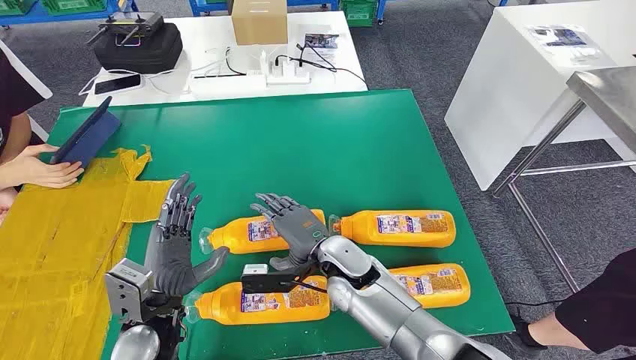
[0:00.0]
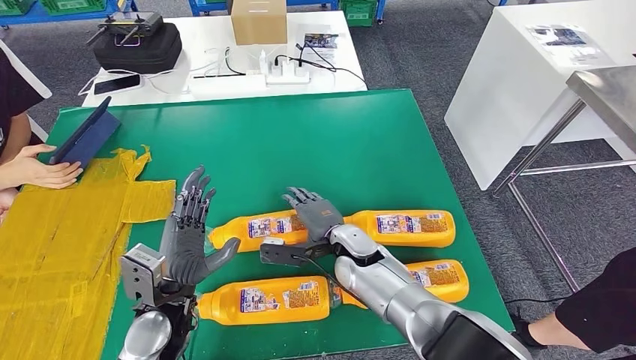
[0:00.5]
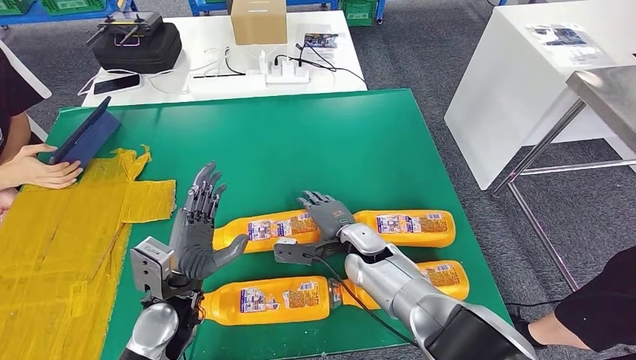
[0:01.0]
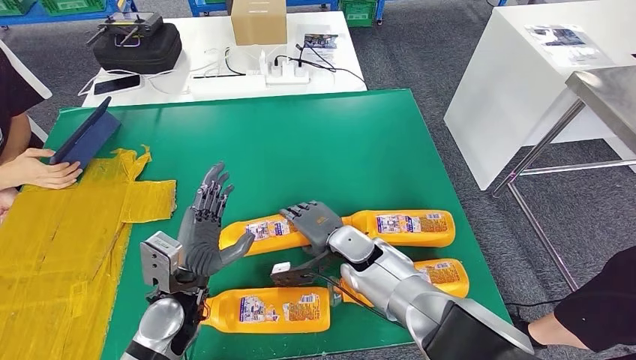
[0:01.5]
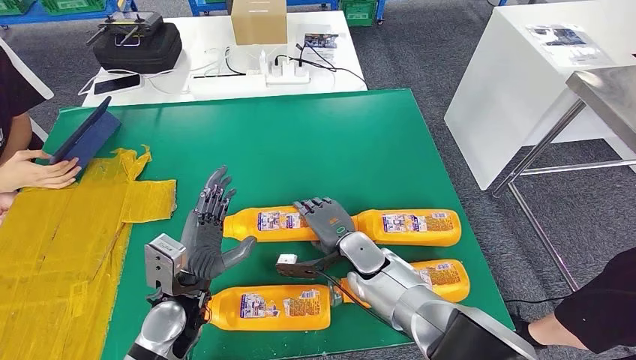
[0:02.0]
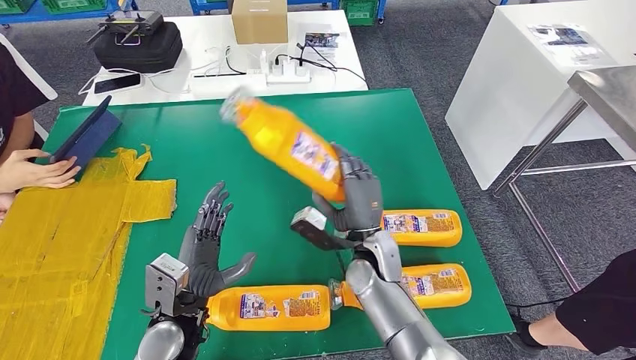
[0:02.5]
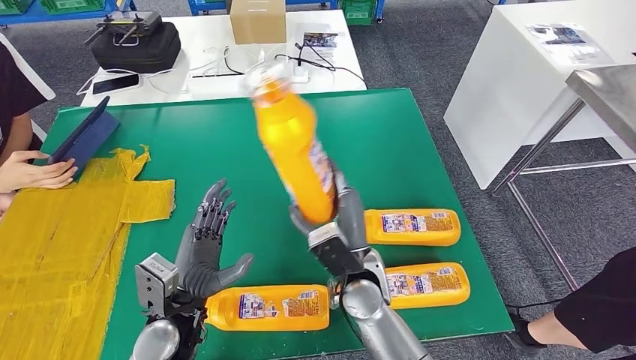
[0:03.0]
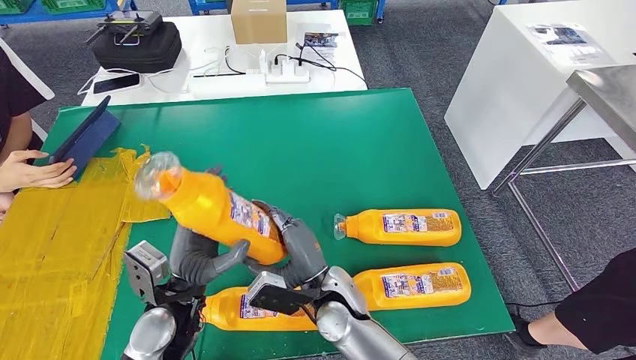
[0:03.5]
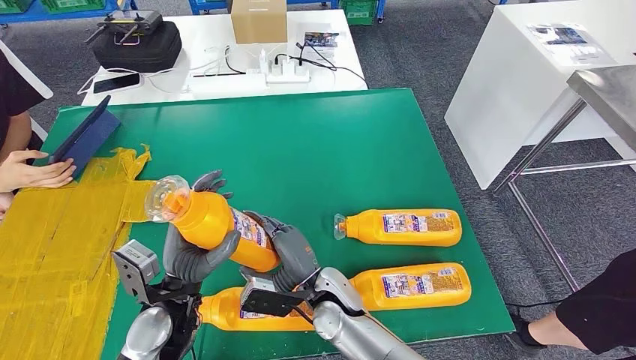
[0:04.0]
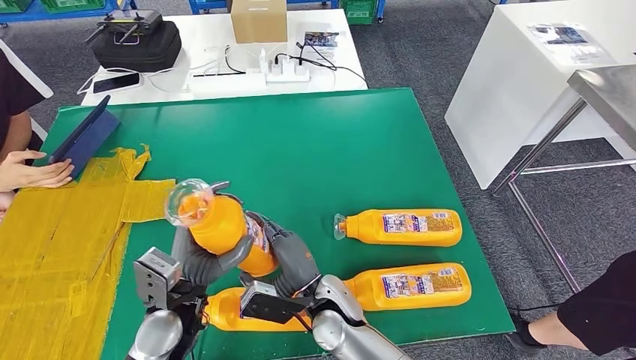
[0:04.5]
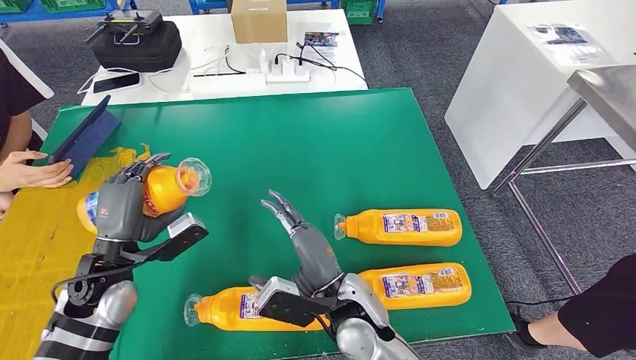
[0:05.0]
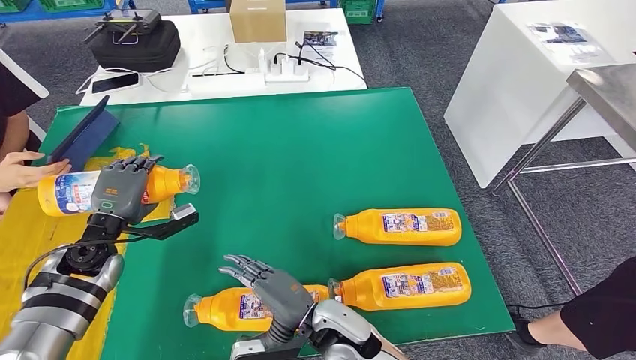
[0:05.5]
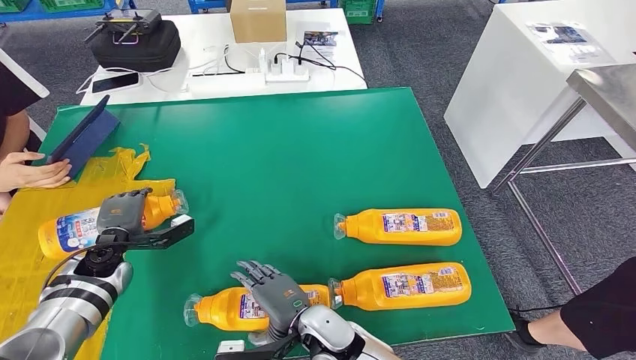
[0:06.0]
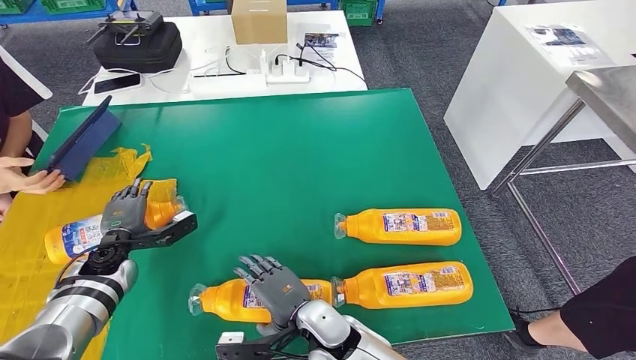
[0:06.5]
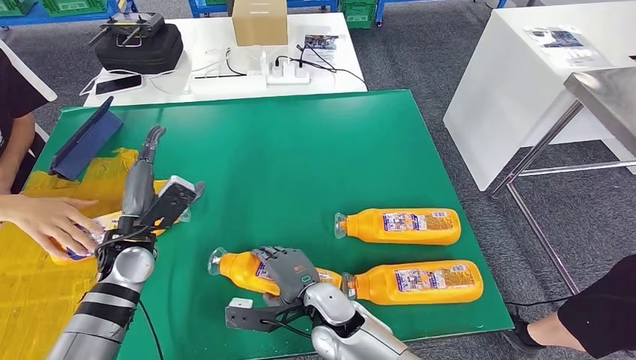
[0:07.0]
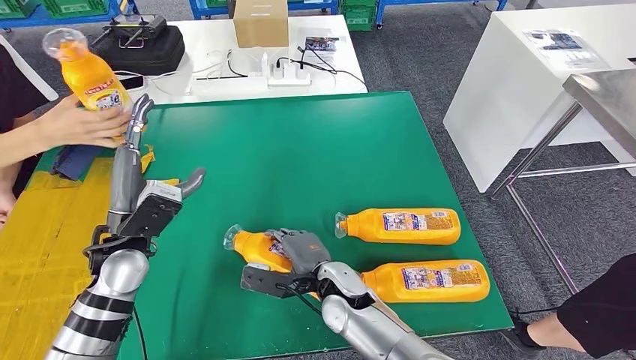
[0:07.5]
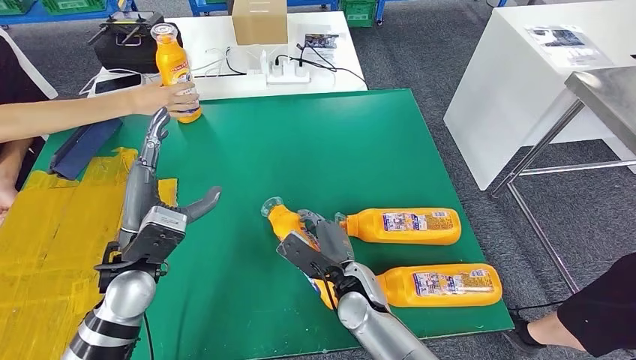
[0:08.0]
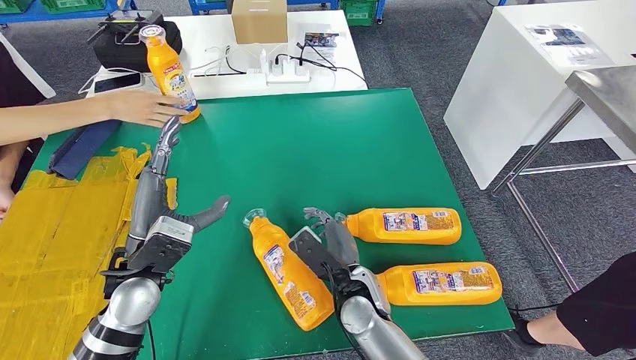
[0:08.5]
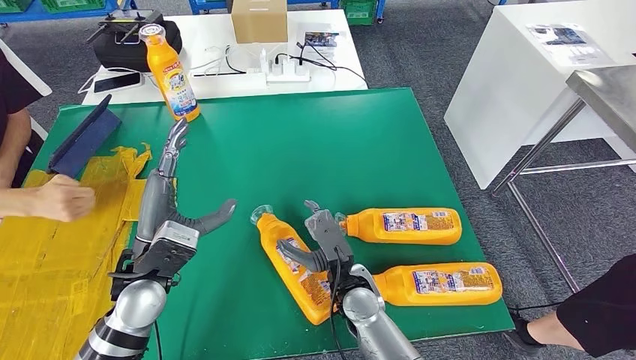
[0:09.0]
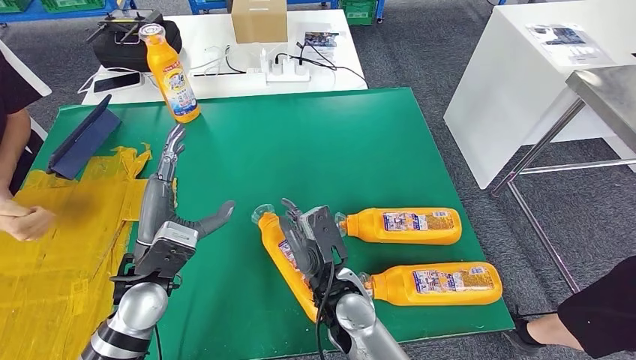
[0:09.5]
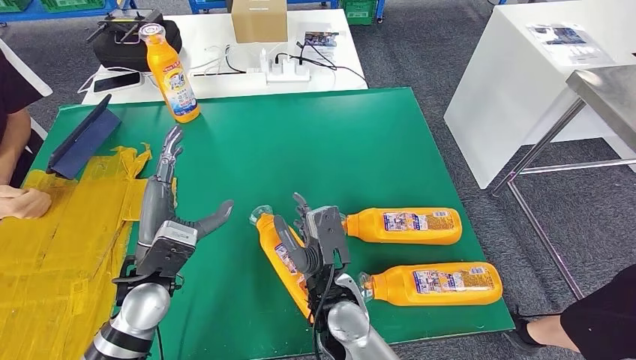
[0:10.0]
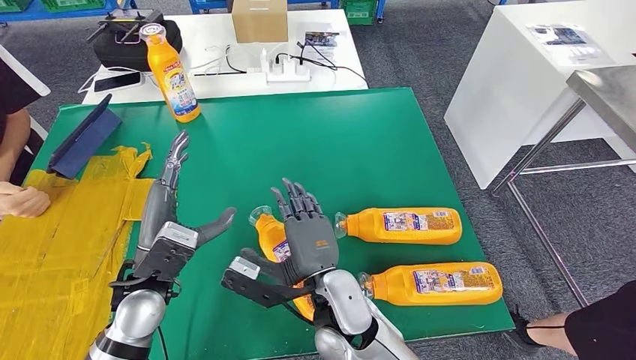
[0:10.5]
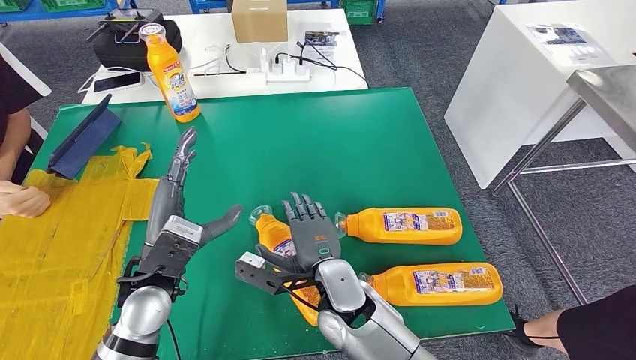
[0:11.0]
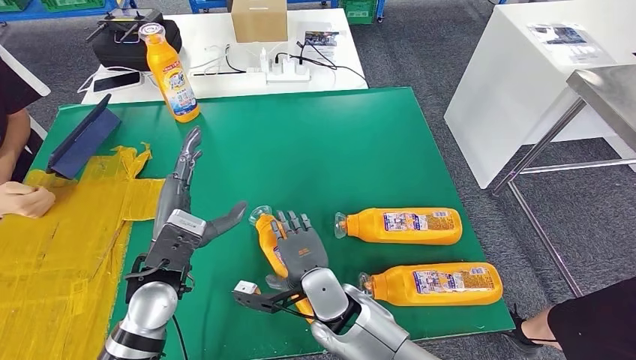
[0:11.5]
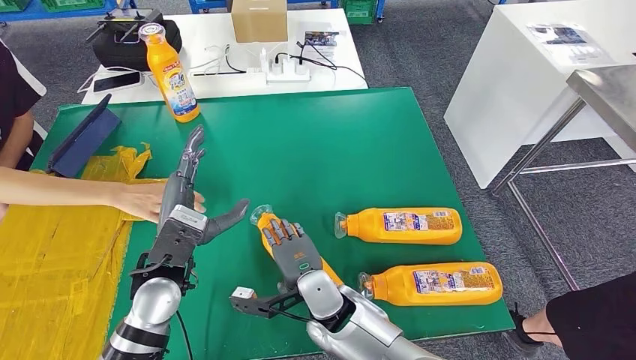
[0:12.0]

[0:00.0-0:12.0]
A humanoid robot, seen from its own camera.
Step, 0:00.0 to 0:02.0: Take the fast-moving consumer goods bottle from the table.
Step, 0:03.0 to 0:06.0: Flip the fast-moving consumer goods bottle to the front side.
0:02.0 to 0:04.0: The right hand moves to the left and backward, roughly 10 cm.
0:04.0 to 0:06.0: The left hand travels to the left and forward by about 20 cm. The right hand goes some 5 cm backward.
0:10.0 to 0:12.0: The right hand moves approximately 5 cm.

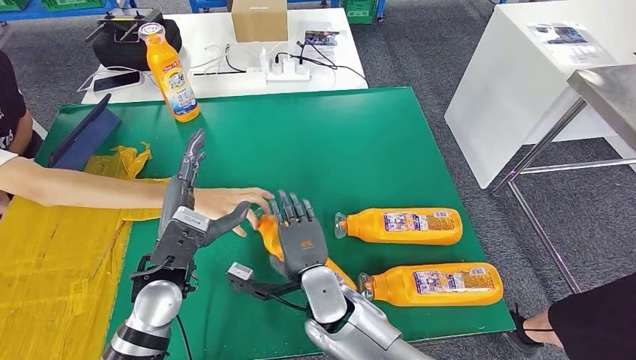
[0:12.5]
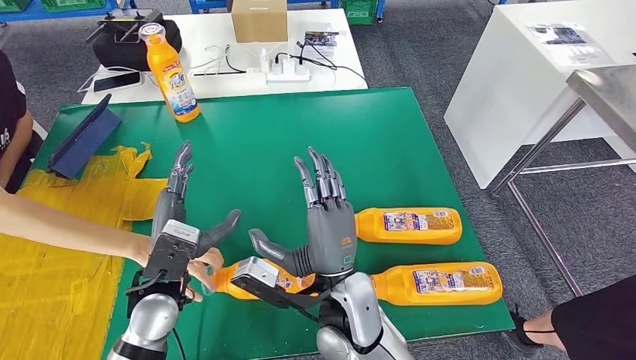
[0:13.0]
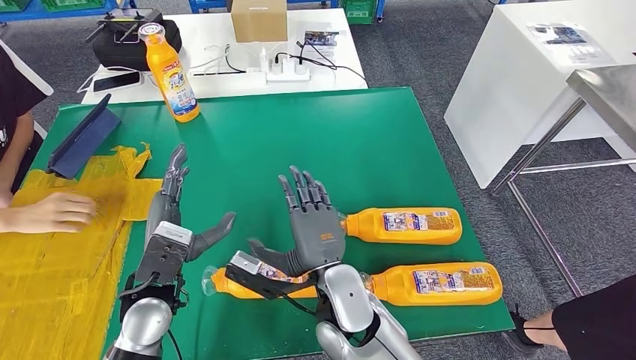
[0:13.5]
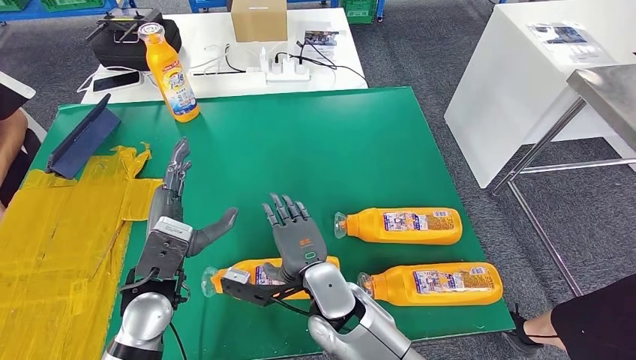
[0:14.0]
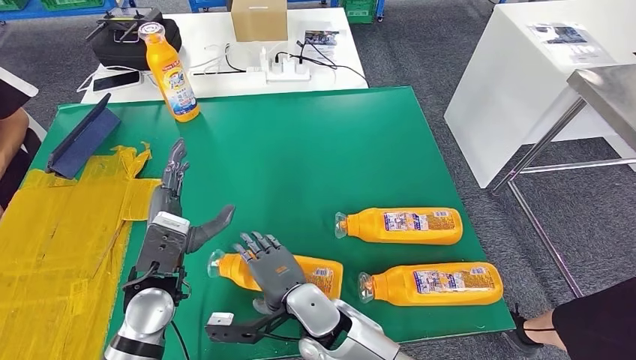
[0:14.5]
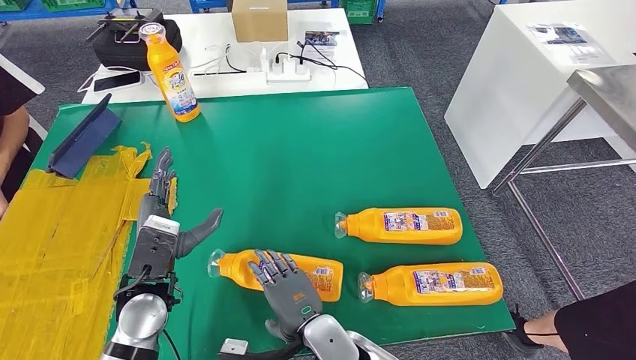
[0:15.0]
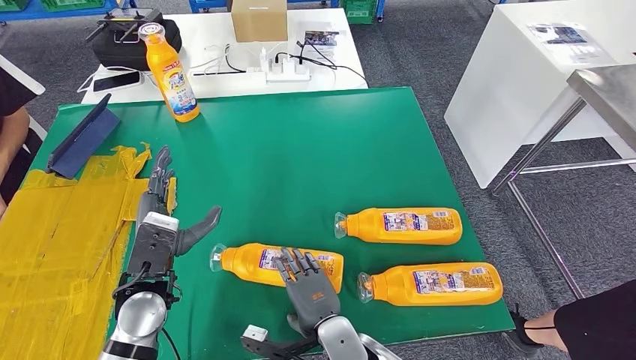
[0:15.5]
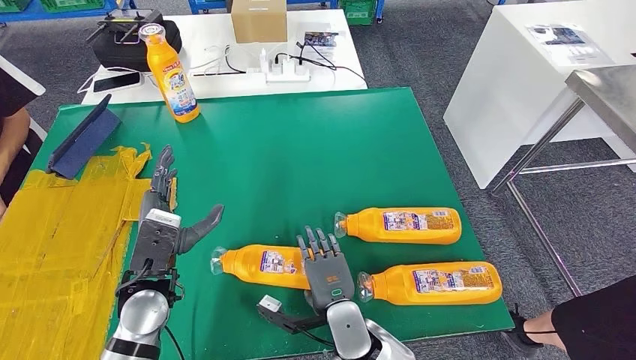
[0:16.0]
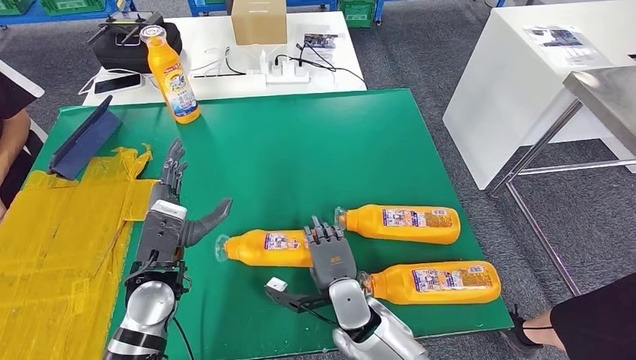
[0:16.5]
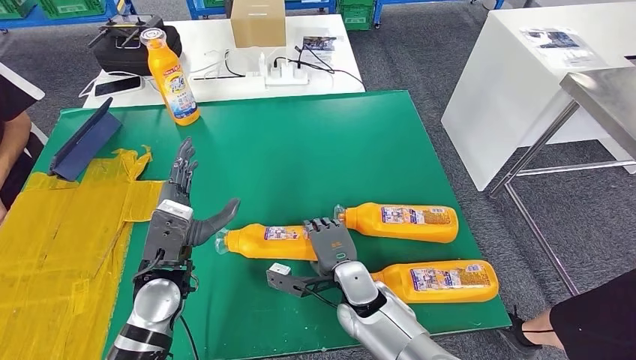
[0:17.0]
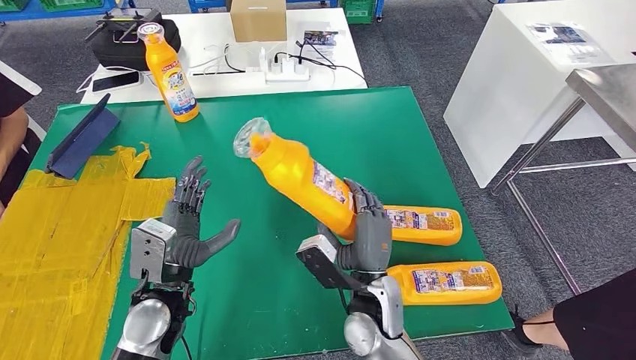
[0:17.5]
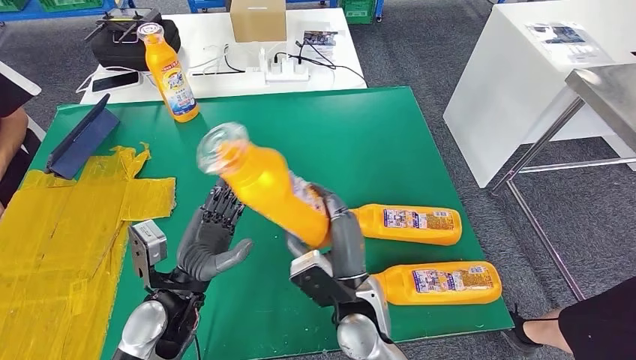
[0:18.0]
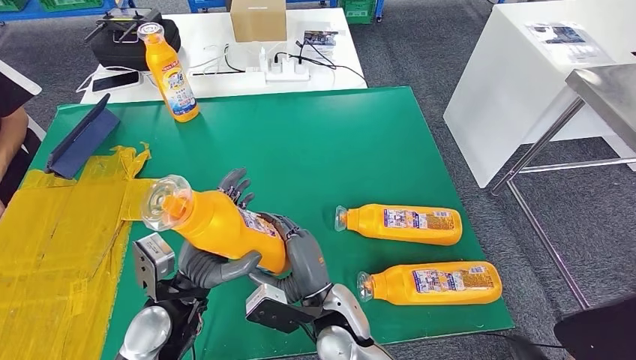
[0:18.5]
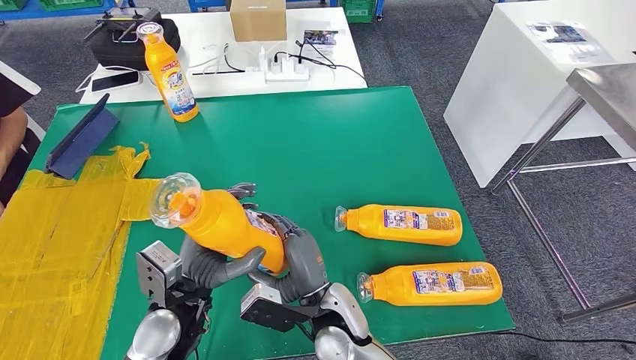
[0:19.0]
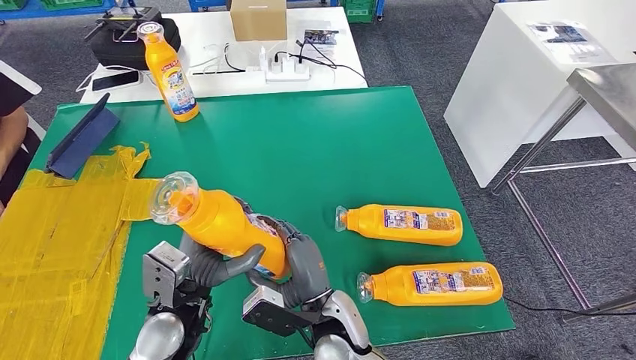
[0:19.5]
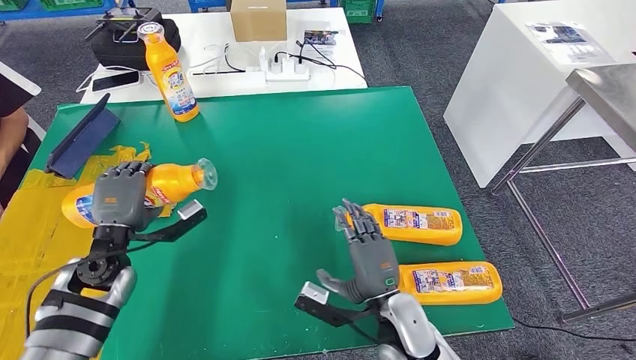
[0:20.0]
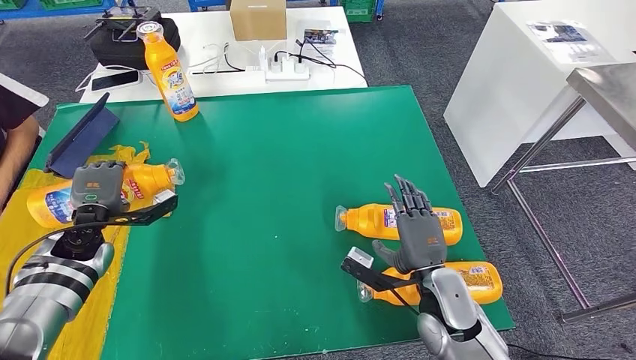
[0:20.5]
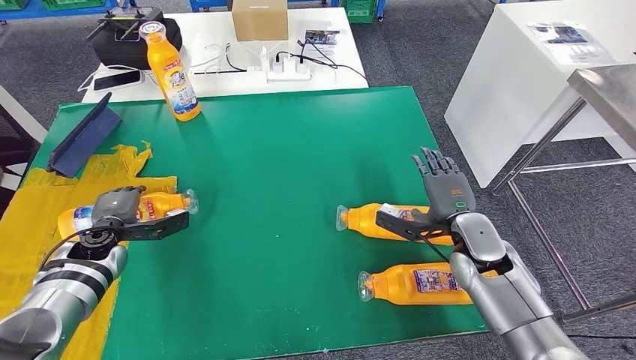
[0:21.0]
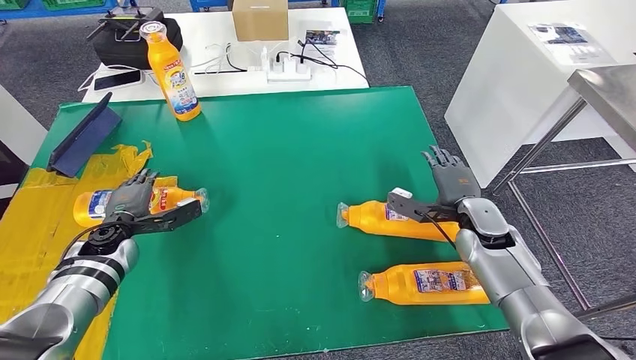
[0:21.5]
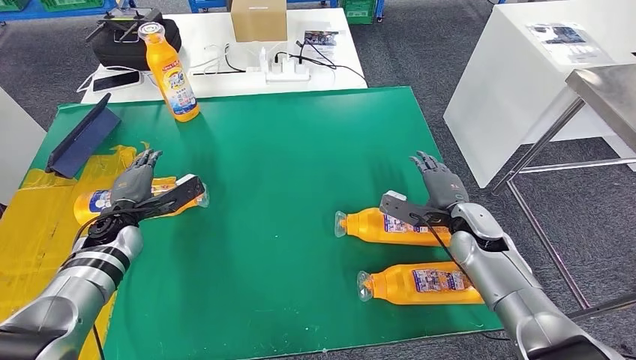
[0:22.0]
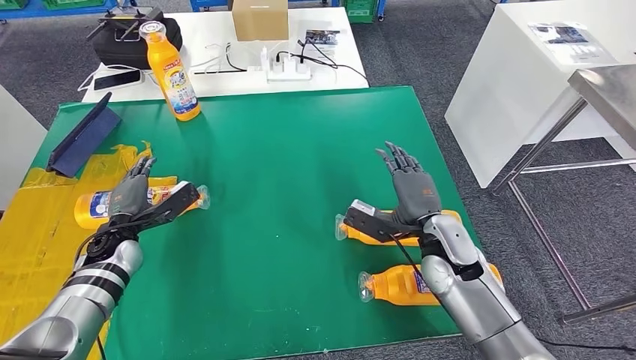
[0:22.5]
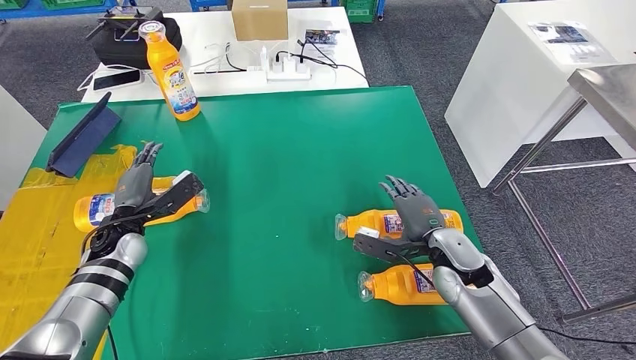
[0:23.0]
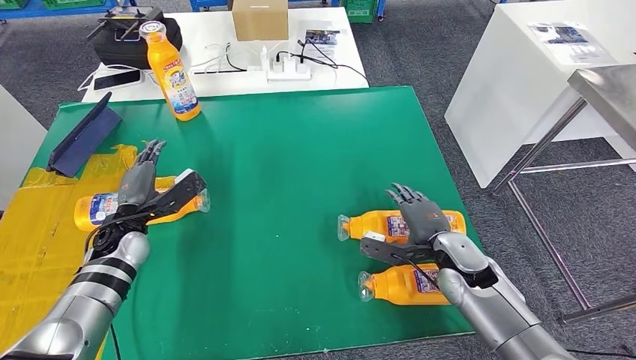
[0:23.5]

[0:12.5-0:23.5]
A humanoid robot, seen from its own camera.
Step, 0:12.5 to 0:17.0: Pick up the fast-moving consumer goods bottle from the table.
Step, 0:18.0 to 0:20.5: Flip the fast-moving consumer goods bottle to the front side.
0:14.5 to 0:16.0: The right hand is displaced to the right by approximately 5 cm.
0:16.0 to 0:18.0: The right hand is displaced upward by approximately 10 cm.
0:21.5 to 0:23.5: The right hand moves backward and to the left, some 5 cm.
